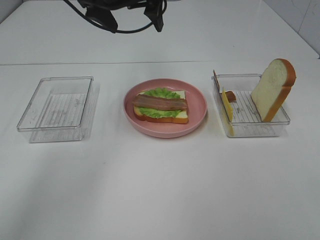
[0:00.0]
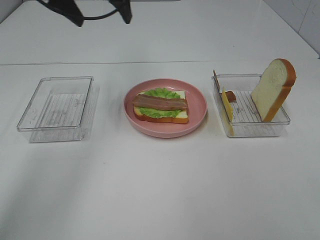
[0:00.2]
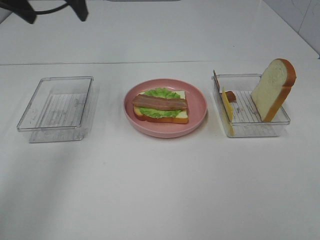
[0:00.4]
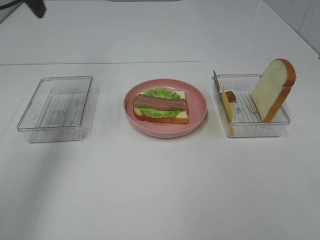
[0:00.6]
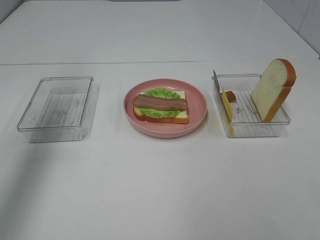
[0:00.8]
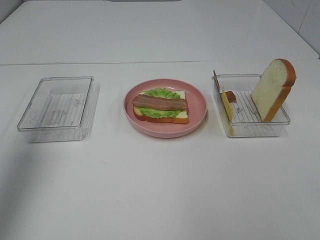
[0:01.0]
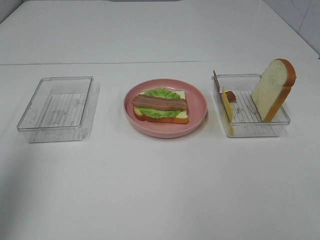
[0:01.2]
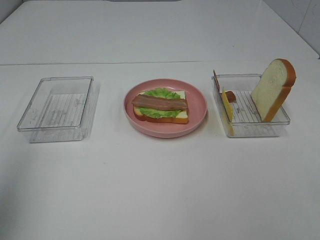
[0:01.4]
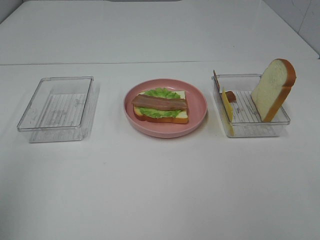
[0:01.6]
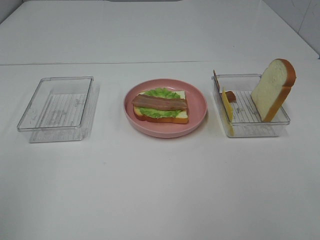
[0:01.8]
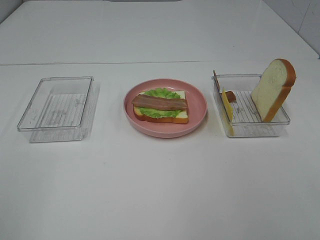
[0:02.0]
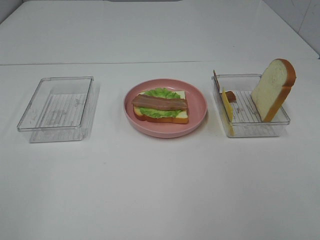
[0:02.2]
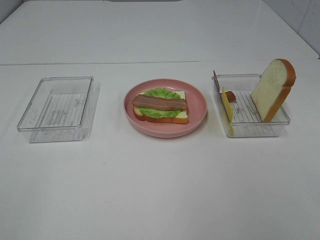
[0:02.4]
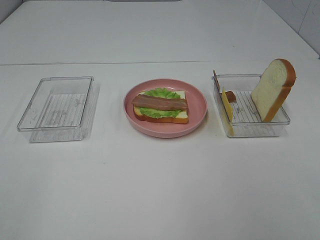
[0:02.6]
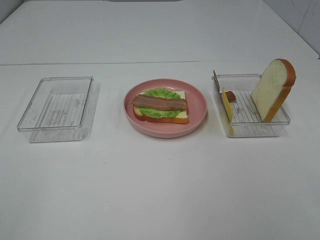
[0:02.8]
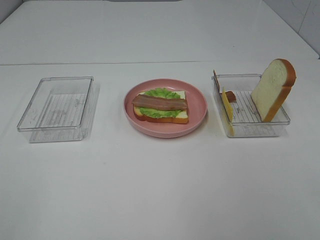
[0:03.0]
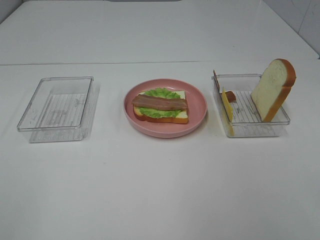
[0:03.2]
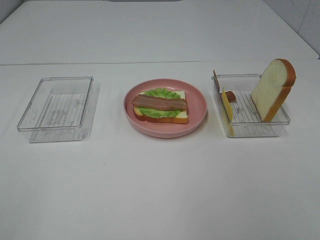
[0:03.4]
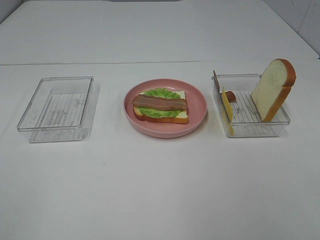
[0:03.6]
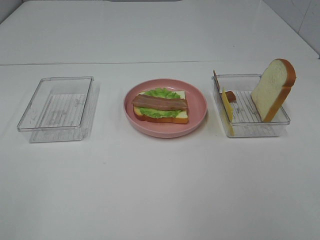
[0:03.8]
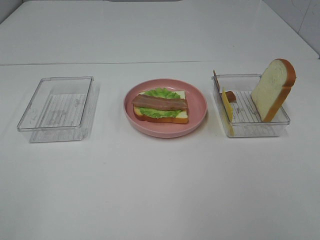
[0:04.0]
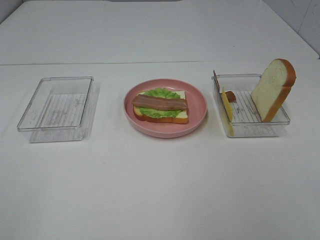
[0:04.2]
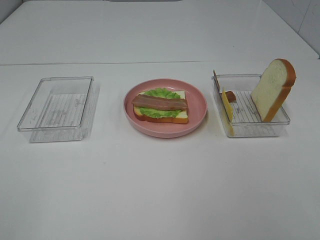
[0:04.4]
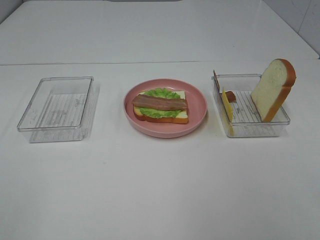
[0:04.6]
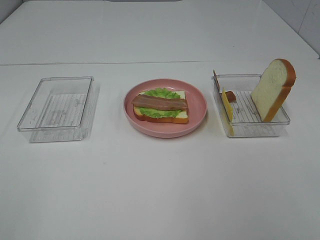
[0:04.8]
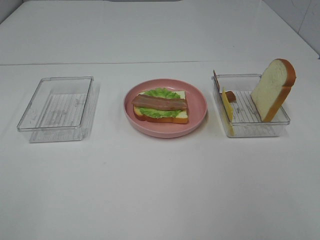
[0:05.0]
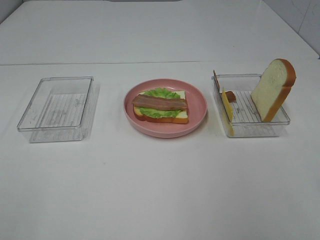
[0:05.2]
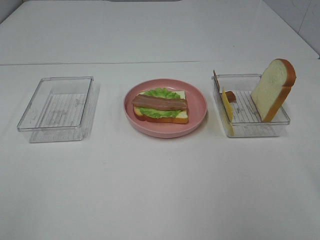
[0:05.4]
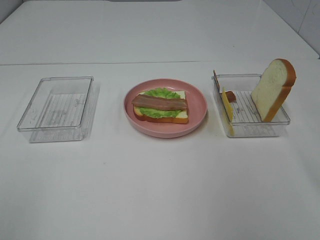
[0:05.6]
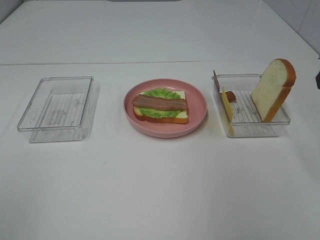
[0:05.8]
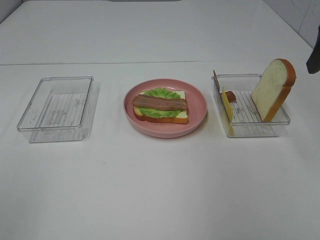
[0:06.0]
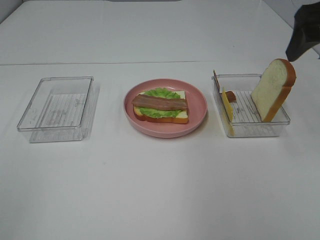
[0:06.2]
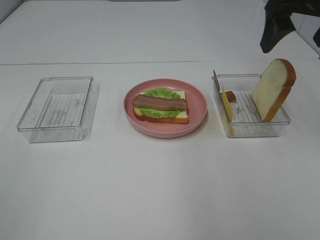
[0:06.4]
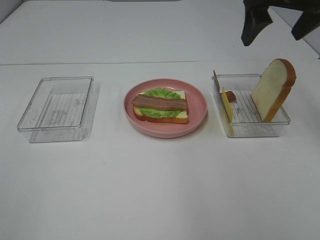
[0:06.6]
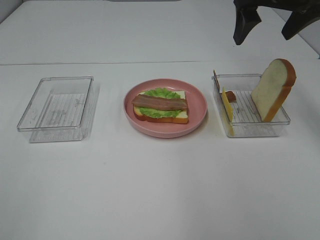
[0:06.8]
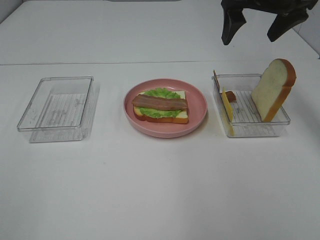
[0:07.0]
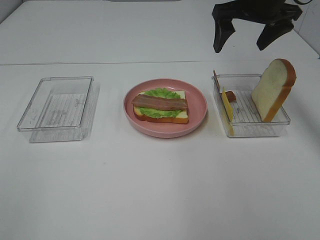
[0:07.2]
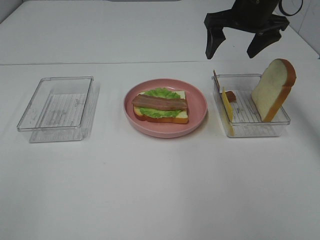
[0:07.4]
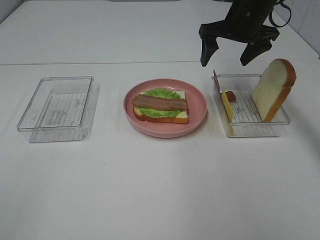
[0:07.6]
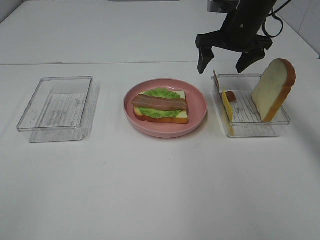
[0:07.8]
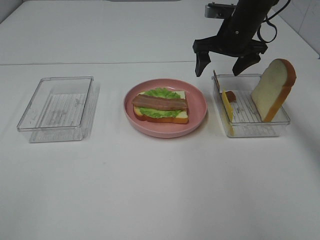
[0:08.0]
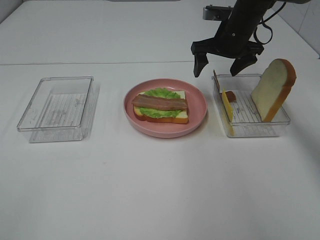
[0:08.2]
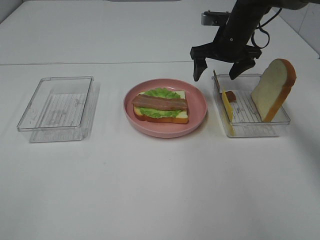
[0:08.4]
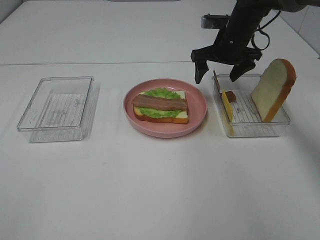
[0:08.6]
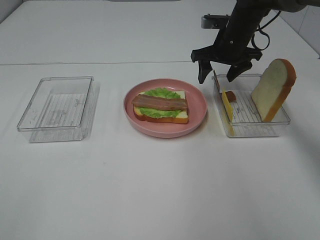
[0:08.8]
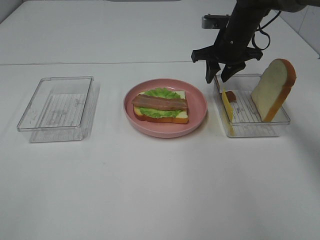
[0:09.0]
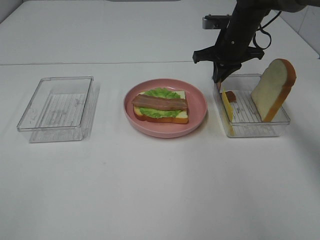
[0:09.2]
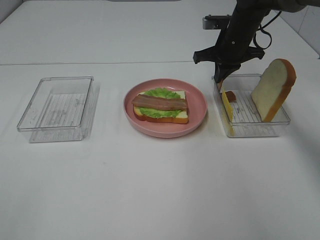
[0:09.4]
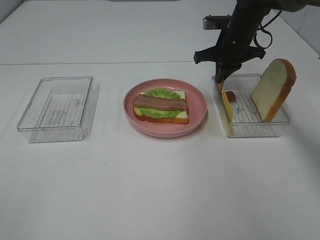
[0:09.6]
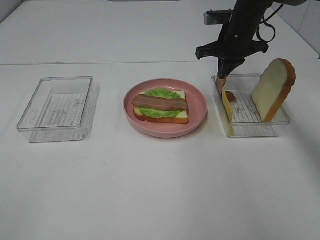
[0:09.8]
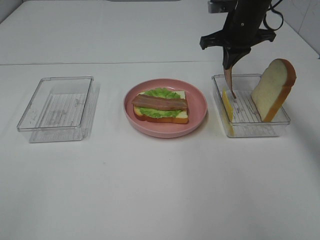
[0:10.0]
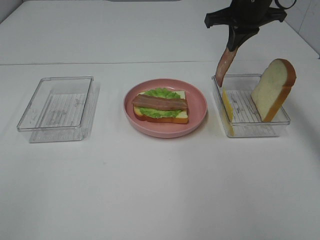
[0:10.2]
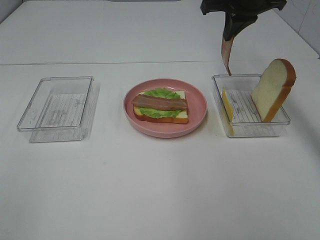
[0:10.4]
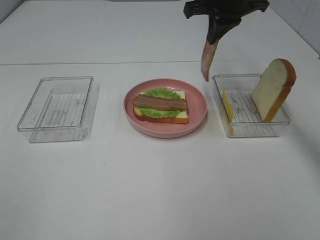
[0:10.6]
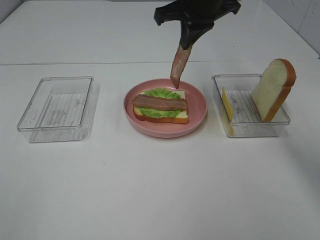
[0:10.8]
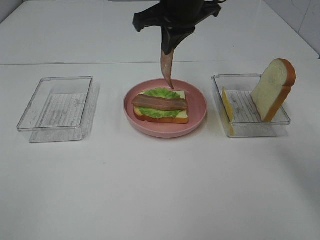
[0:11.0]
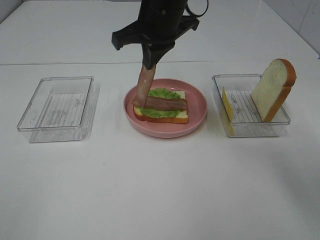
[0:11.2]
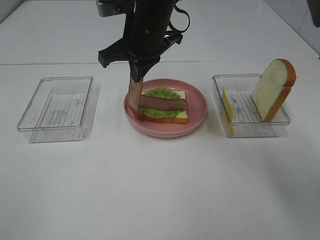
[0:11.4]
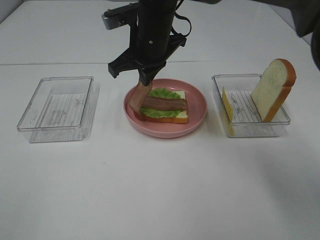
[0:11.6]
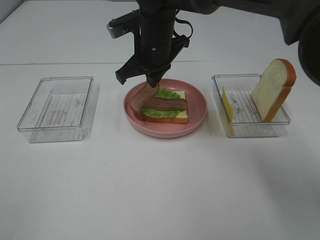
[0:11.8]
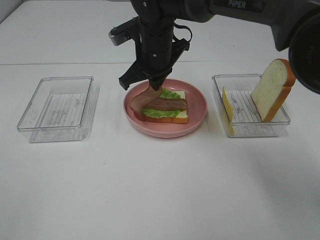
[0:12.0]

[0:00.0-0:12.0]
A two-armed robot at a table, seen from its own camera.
Task of the whole recording: Make sandwiches.
Step, 0:00.0 to 0:09.8: Right hand:grab the bacon.
0:00.0 to 0:01.6: The left gripper shifts about 40 cm backward and to the left.
0:03.0 to 0:04.4: Neither gripper changes place.
0:06.0 to 0:07.6: The right gripper travels forward, to the left and downward by approximately 25 cm.
0:07.6 to 0:09.0: The right gripper travels downward by approximately 5 cm, and closes.
0:09.0 to 0:10.4: The right gripper shifts some 10 cm upward, and closes up.
0:10.4 to 0:12.0: The right gripper is displaced to the left and downward by some 20 cm.

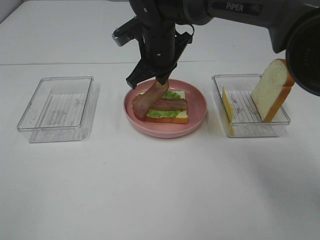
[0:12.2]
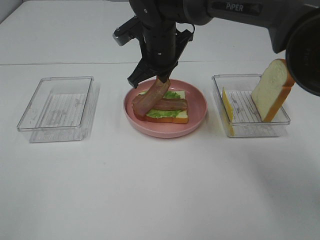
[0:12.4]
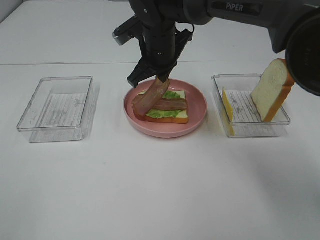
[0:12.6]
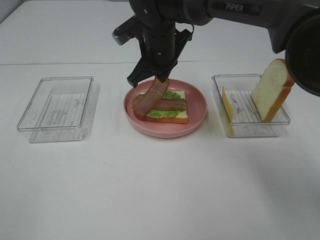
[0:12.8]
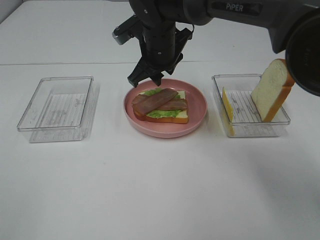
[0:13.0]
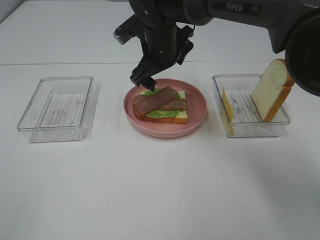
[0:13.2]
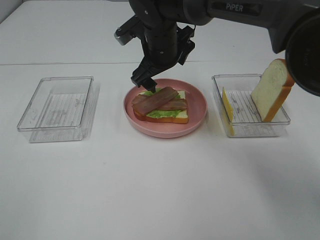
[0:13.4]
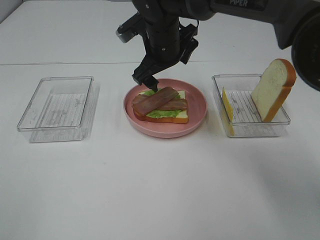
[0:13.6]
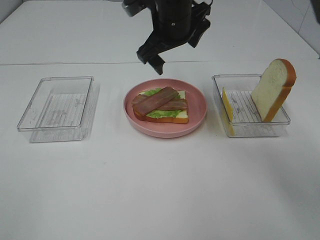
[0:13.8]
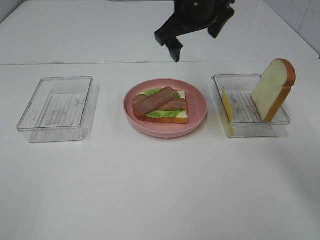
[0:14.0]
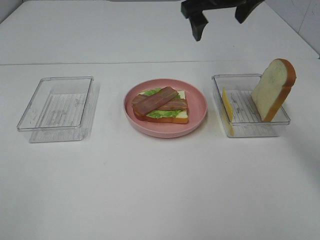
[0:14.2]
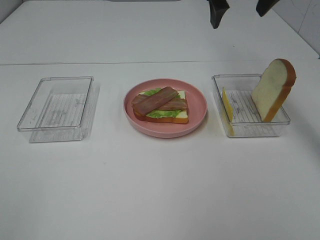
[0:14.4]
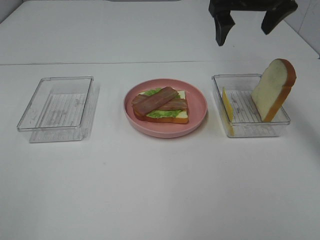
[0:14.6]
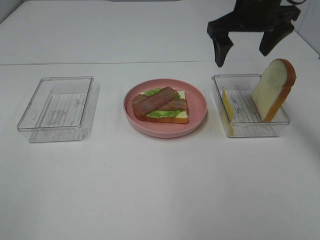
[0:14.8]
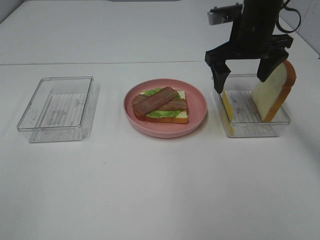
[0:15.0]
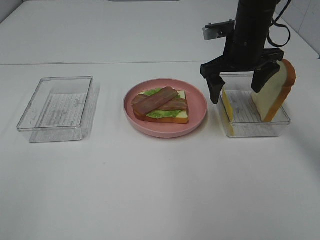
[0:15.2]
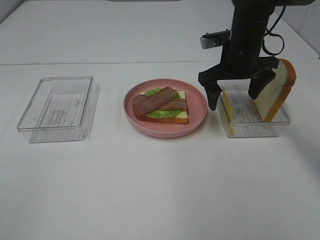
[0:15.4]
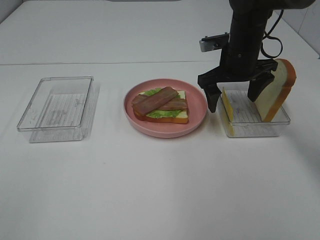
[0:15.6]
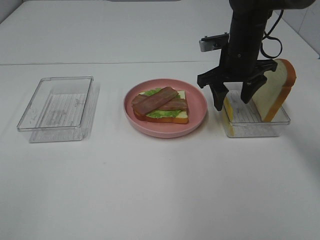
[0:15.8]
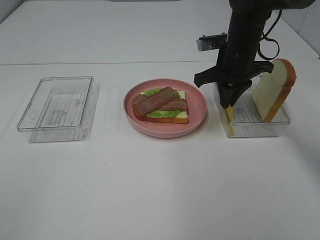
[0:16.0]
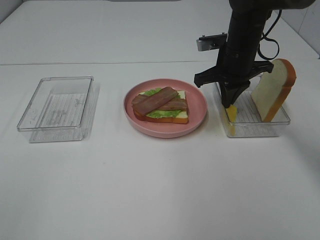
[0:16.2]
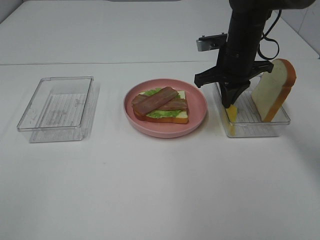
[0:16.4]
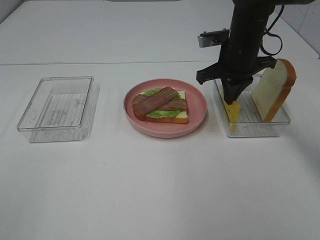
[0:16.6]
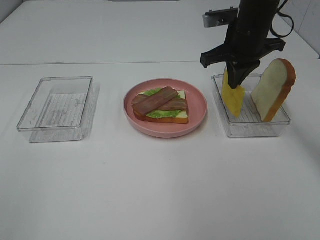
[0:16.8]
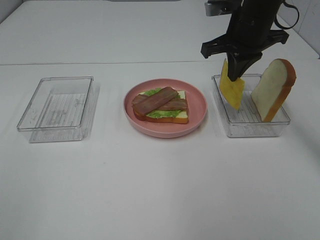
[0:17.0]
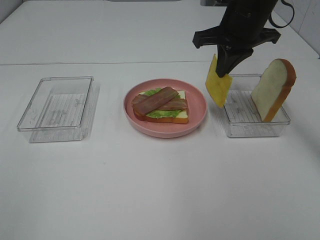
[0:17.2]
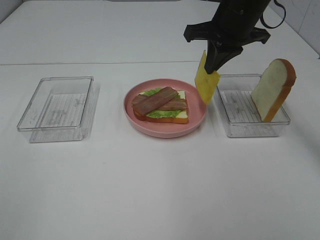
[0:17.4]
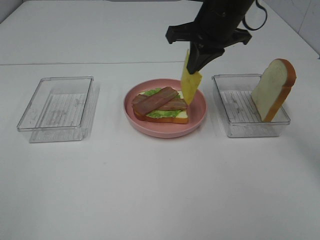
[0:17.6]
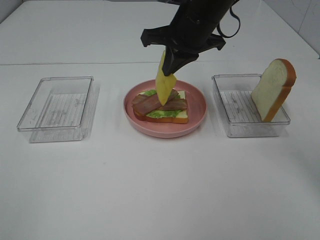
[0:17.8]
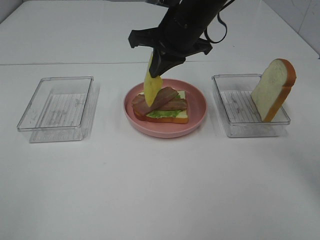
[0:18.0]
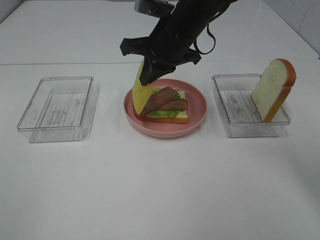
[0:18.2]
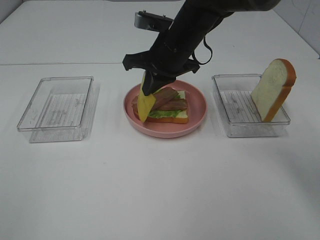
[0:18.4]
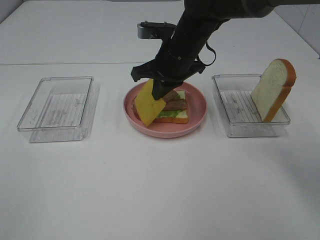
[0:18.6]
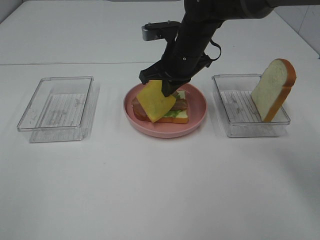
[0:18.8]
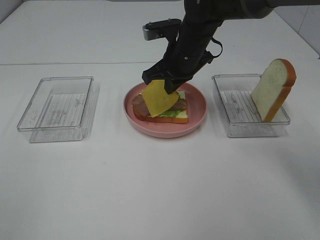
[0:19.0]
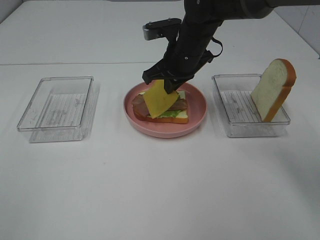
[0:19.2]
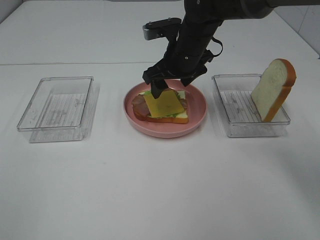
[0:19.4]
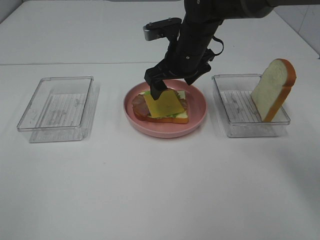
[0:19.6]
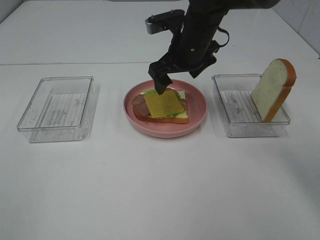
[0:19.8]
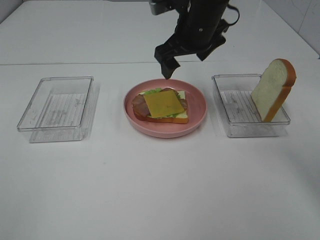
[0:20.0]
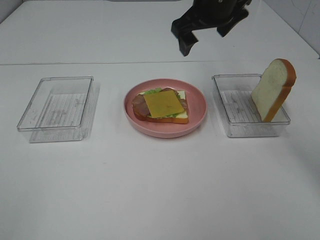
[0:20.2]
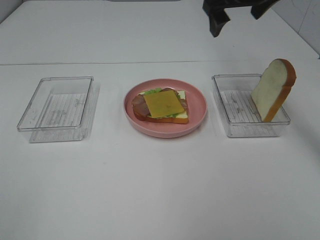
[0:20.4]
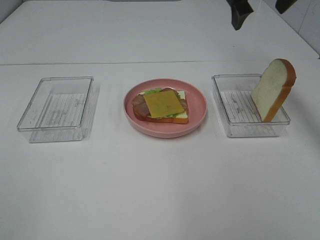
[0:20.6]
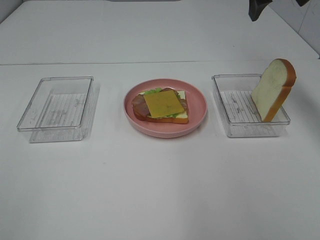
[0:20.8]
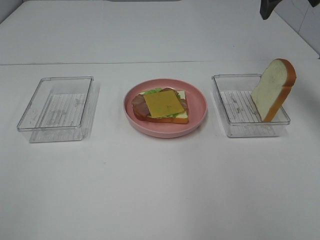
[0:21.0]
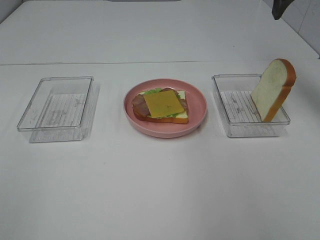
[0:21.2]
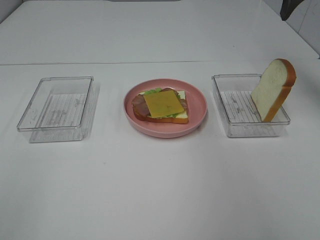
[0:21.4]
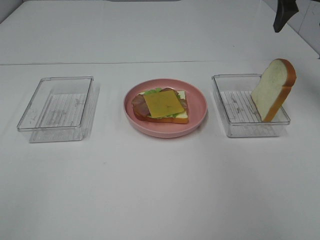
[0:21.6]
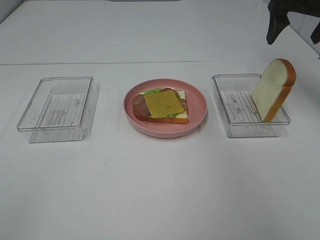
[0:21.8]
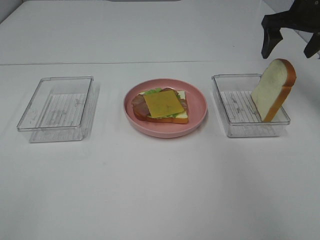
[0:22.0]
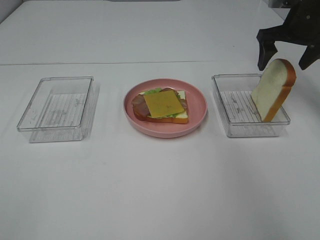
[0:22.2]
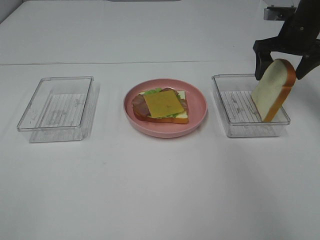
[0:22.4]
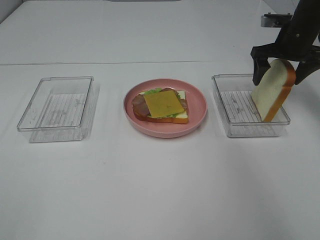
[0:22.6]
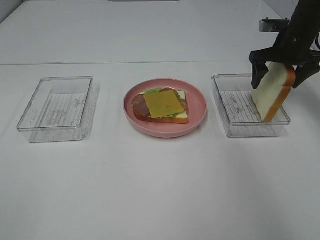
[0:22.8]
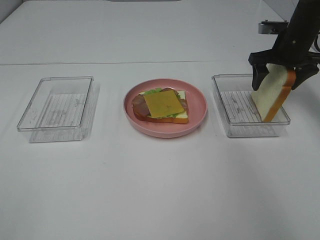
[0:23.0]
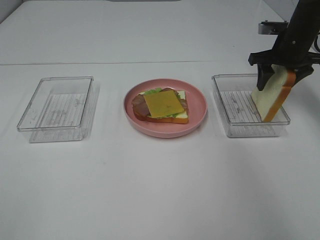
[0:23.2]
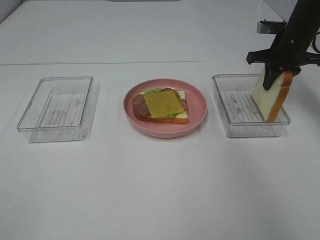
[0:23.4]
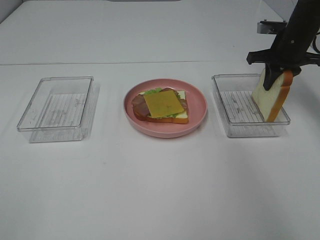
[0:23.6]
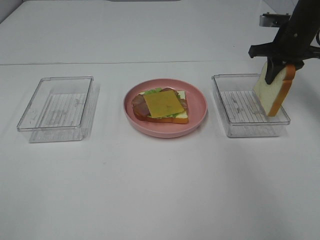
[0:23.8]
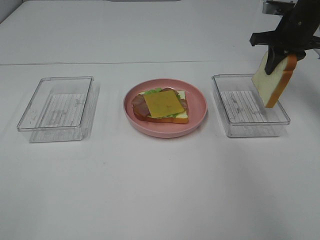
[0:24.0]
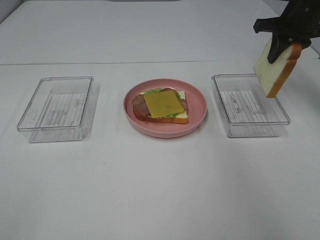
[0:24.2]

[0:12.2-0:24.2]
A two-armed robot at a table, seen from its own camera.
Task of the whole recording: Make sandwiches.
Step, 0:14.0 to 0:16.0: Right hand:grab the cheese slice.
Step, 0:16.2 to 0:20.0: Right hand:place the cheese slice on top of the bacon.
Step, 0:20.2 to 0:23.6: Right hand:grab the bread slice.
0:12.2 to 0:13.8: The right gripper shifts about 5 cm upward, and opens up.
0:13.8 to 0:15.2: The right gripper heads to the right and downward, covering some 15 cm.
0:15.2 to 0:16.6: The right gripper closes its fingers.
0:16.6 to 0:18.2: The right gripper goes some 10 cm to the left.
0:18.2 to 0:19.8: The right gripper opens its fingers.
0:19.8 to 0:21.2: The right gripper goes about 25 cm to the right and upward.
0:21.2 to 0:22.6: The right gripper shifts some 15 cm downward.
0:22.6 to 0:24.2: The right gripper goes about 5 cm upward, and closes its fingers.
